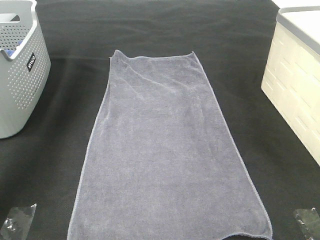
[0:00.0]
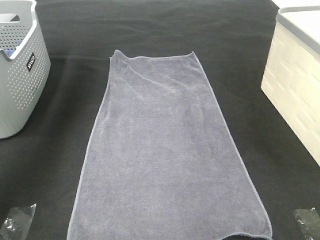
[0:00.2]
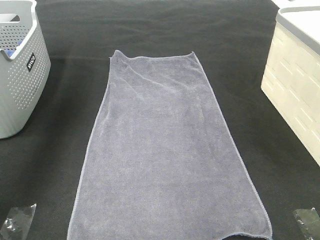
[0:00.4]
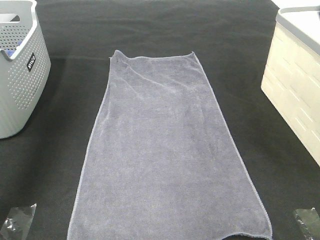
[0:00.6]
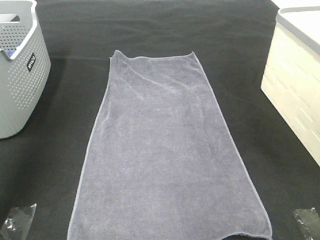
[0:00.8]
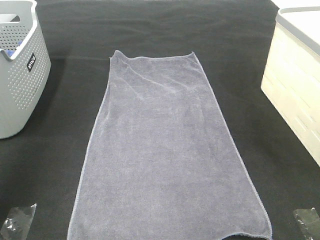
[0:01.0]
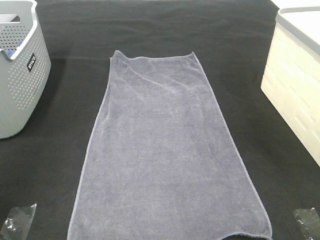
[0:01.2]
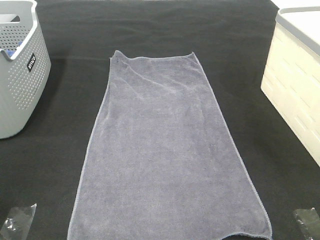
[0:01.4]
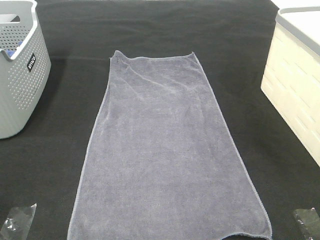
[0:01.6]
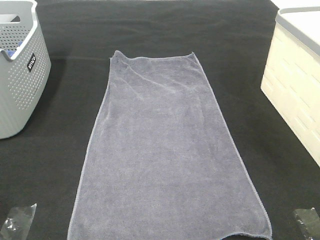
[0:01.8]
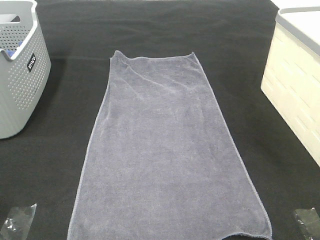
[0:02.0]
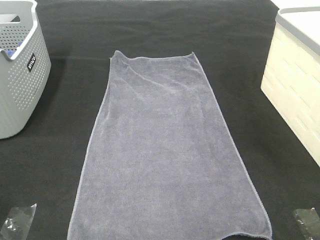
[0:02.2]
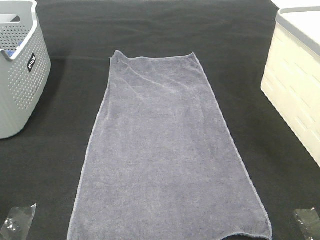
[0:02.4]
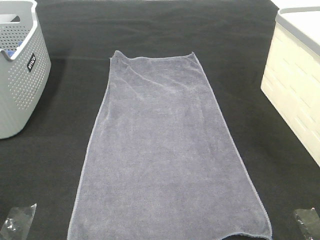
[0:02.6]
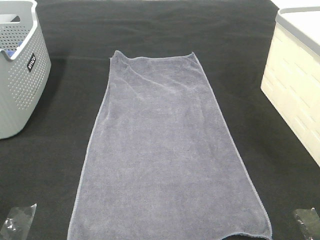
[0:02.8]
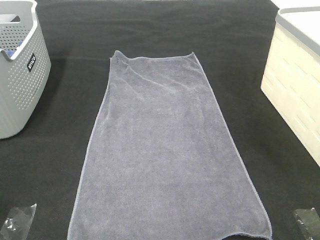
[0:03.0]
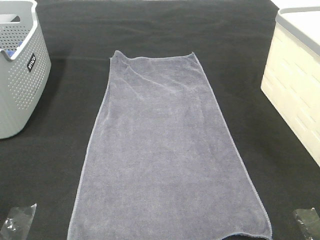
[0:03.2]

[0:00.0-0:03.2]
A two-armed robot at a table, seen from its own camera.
Task of the whole recording: Remove the towel and place it.
0:00.0 to 0:01.6: The two grippers go about 50 cm backward.
